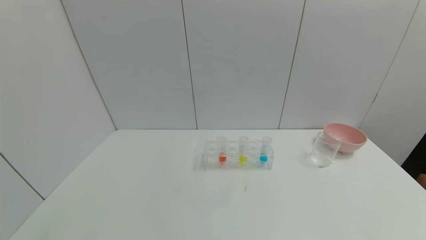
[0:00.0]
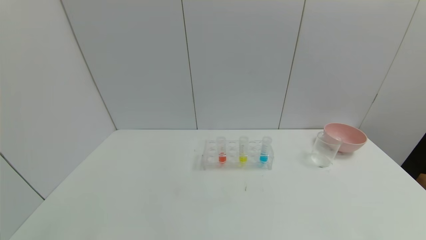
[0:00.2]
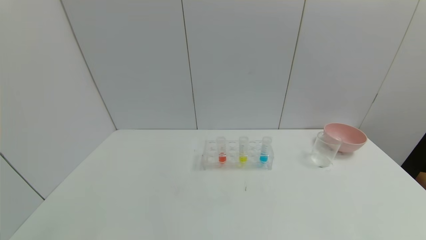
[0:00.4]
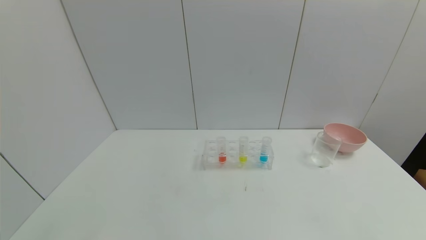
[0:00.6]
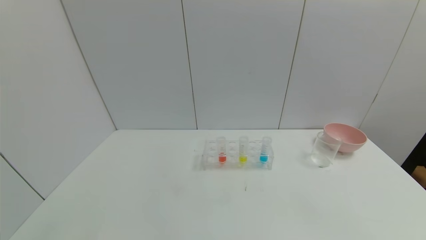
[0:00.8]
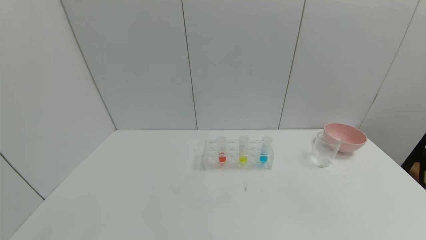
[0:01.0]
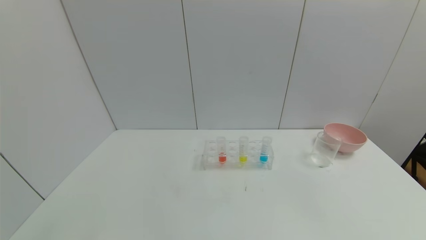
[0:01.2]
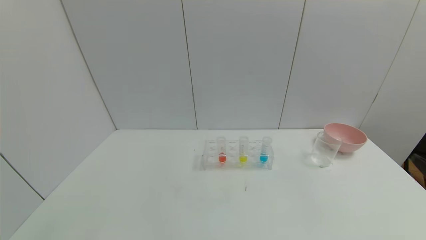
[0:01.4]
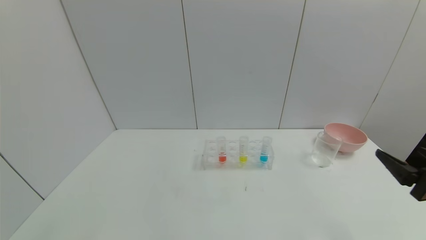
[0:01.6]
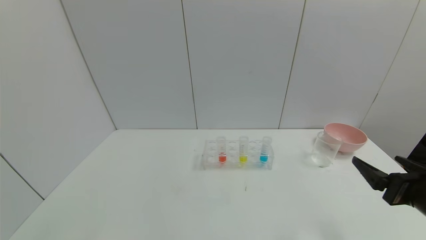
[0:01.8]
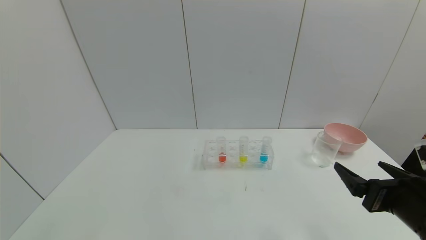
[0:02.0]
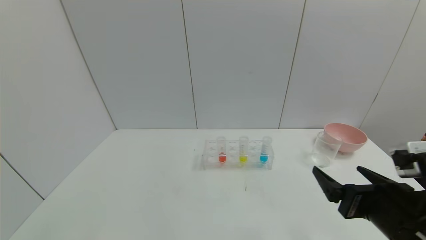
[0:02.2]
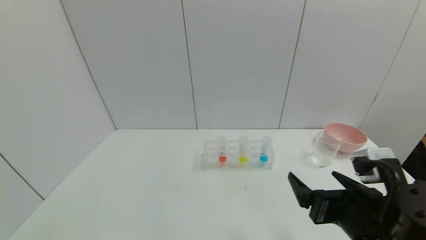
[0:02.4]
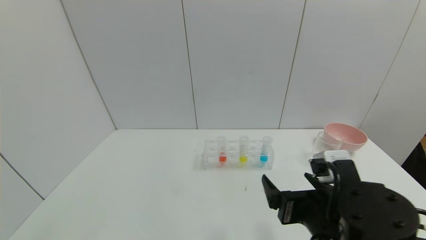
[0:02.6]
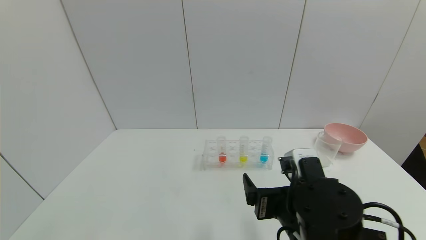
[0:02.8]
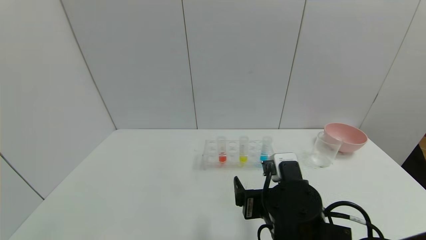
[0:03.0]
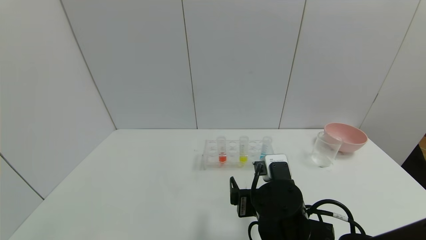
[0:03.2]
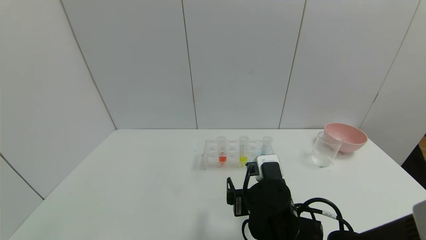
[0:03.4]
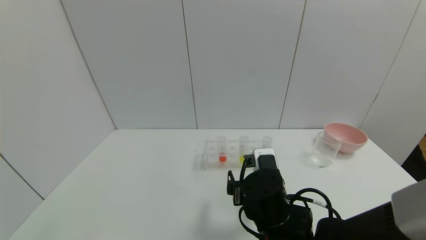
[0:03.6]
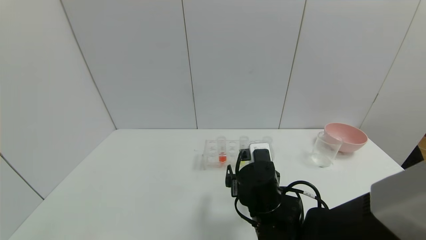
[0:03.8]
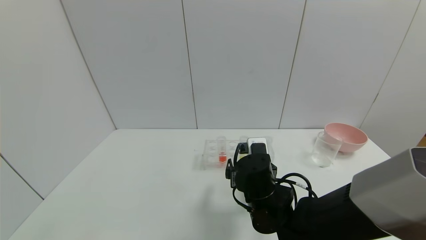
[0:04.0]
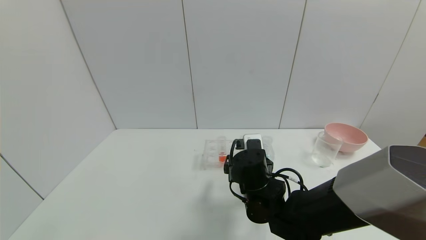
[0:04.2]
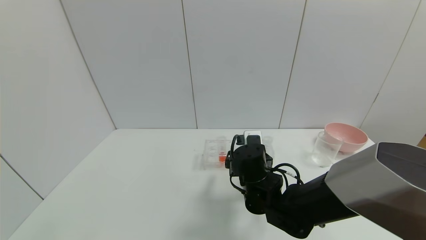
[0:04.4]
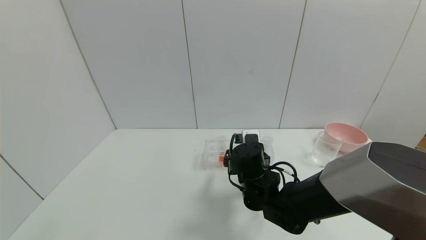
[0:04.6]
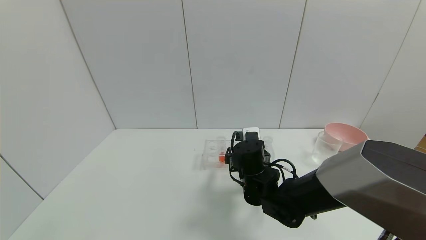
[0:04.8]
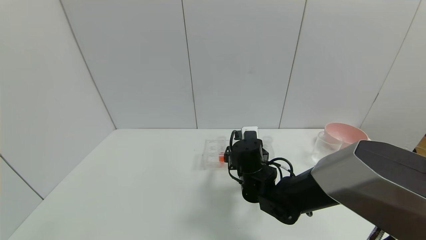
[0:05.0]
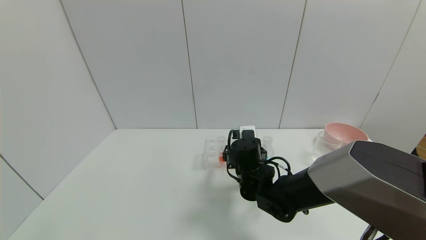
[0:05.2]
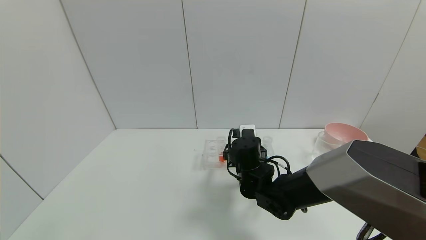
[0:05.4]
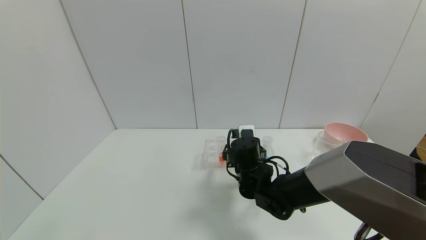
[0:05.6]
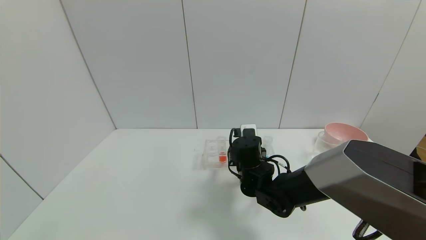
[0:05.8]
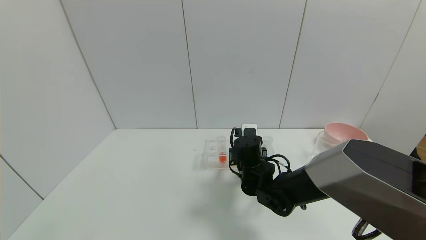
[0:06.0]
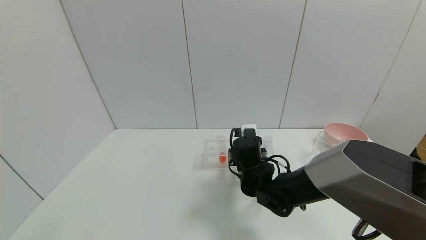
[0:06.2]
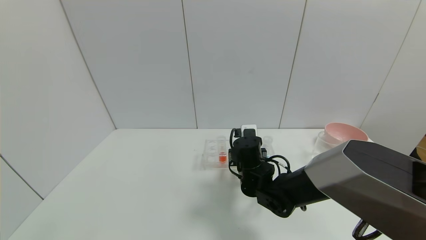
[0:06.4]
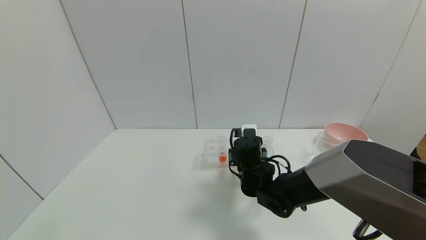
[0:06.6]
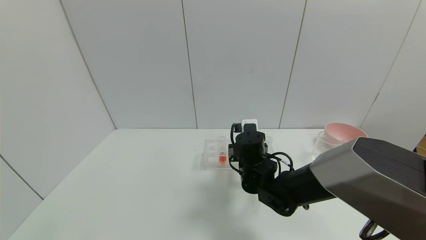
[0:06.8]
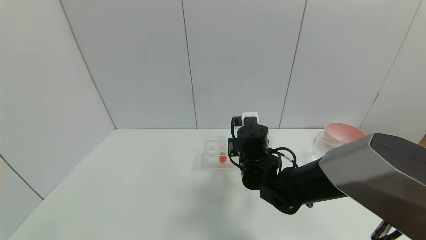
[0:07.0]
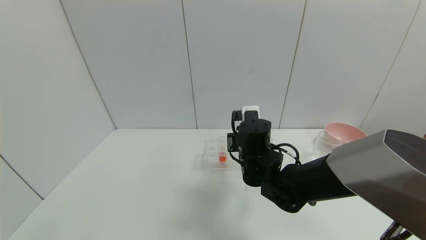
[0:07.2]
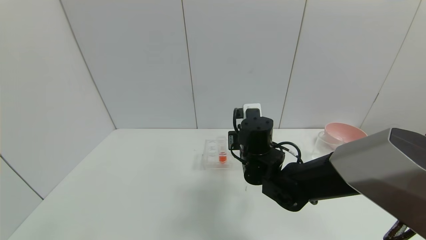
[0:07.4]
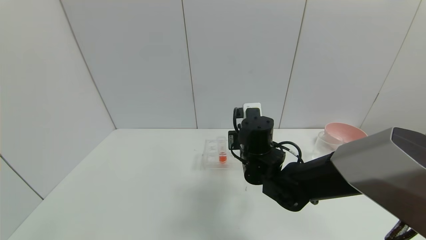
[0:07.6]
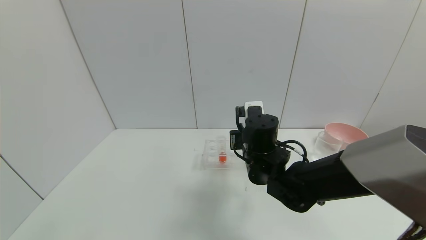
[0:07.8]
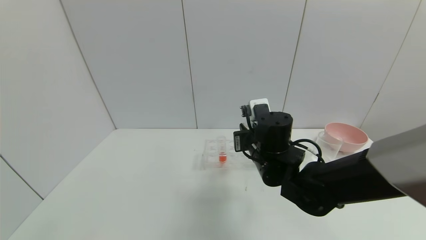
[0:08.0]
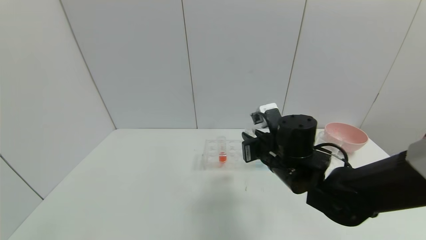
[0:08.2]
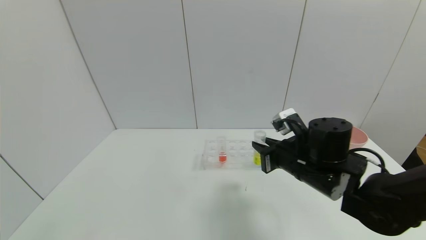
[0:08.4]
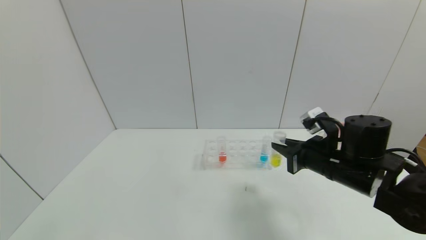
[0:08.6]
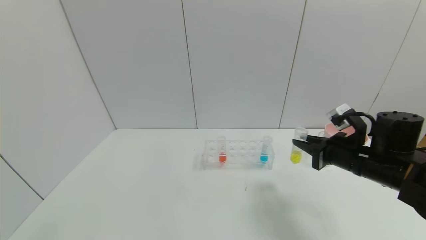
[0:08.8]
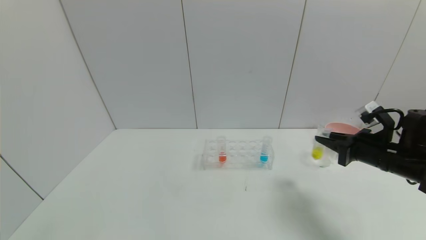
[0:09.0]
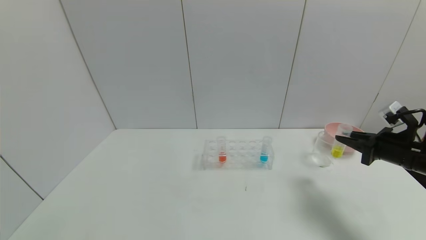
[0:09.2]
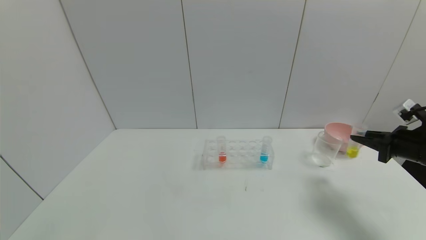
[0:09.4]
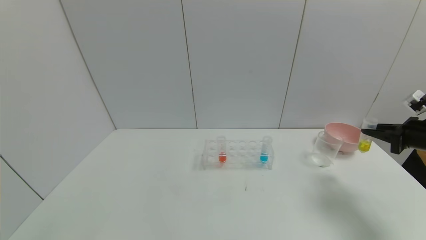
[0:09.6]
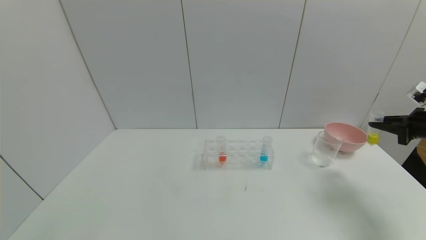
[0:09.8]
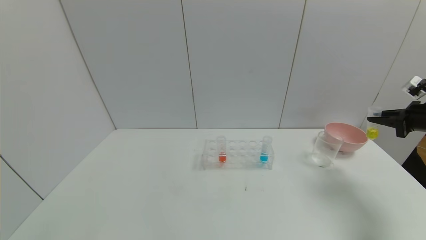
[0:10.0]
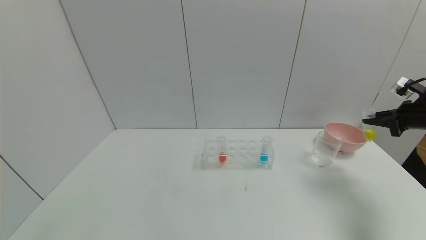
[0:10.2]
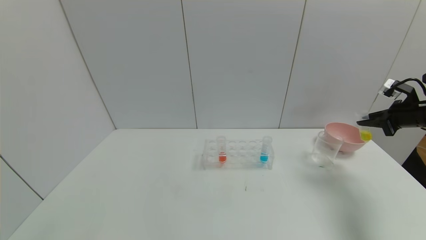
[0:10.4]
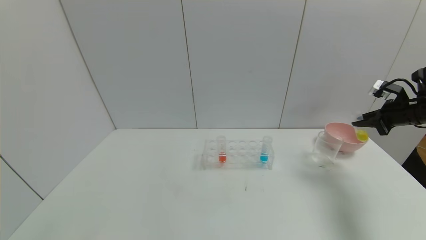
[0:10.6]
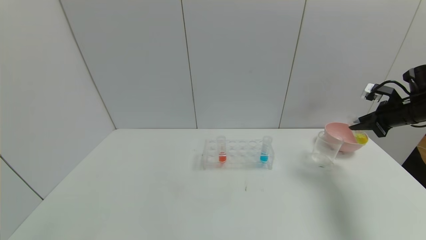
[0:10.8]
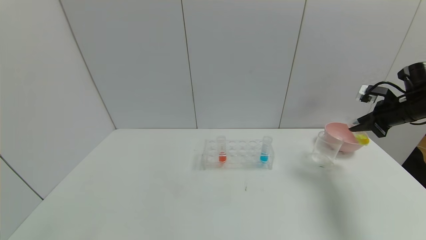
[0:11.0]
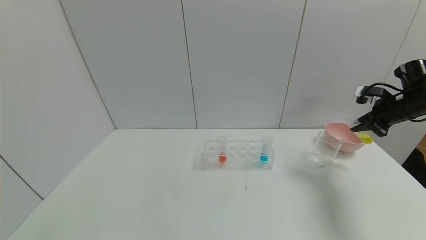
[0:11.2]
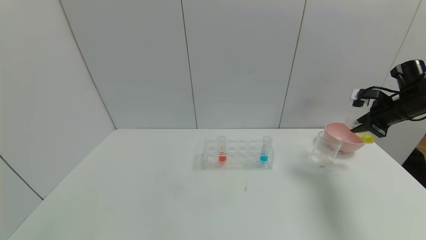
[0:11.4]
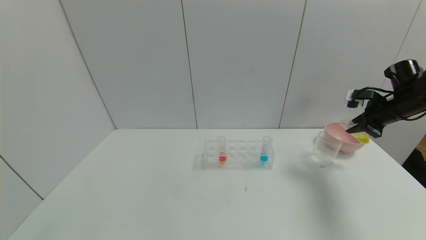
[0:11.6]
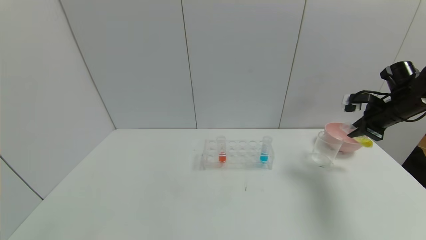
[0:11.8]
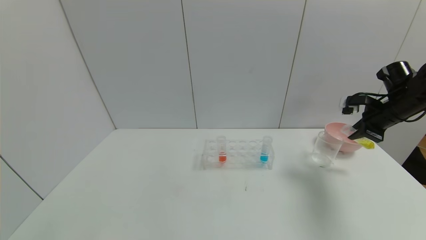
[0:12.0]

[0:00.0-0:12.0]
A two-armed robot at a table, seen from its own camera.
Task of the whole recording: pick up the test tube with yellow pigment and the test tube with blue pigment by grippers and pour them into the beaker.
Step, 0:00.0 to 0:06.2: Grasp the yellow reagent with the right gripper.
0:00.0 to 0:01.6: The right gripper is displaced forward and upward by about 20 cm.
0:01.6 to 0:03.0: The right gripper moves to the left, about 25 cm.
0:03.0 to 0:04.4: The right gripper heads forward, covering roughly 10 cm.
0:04.4 to 0:06.0: The right gripper closes.
0:06.0 to 0:07.6: The right gripper shifts some 5 cm upward.
0:07.6 to 0:09.0: The right gripper goes some 25 cm to the right.
0:09.0 to 0:10.4: The right gripper goes about 15 cm to the right and forward.
0:10.4 to 0:12.0: The right gripper is displaced to the left by approximately 5 cm.

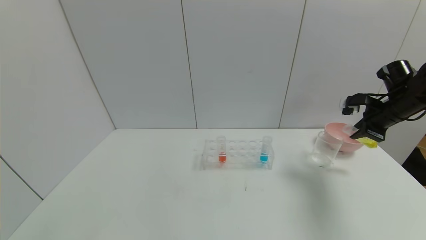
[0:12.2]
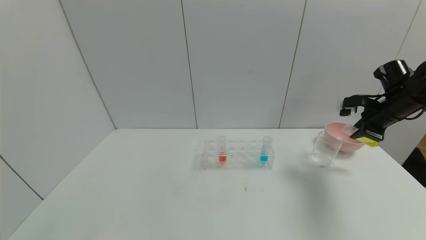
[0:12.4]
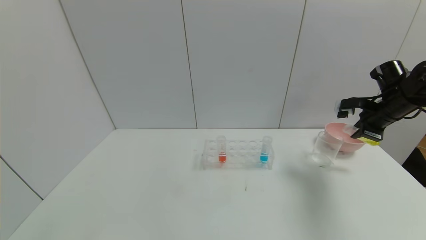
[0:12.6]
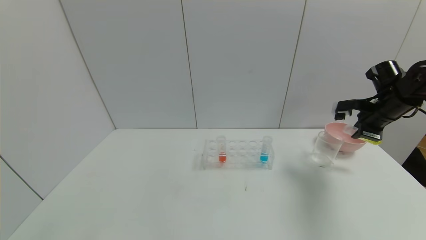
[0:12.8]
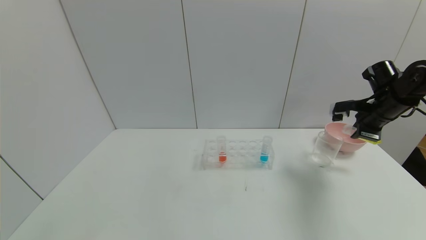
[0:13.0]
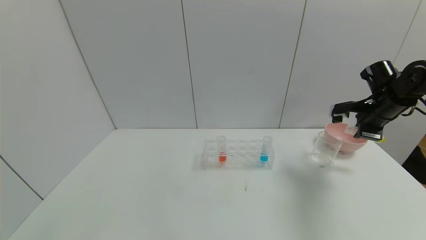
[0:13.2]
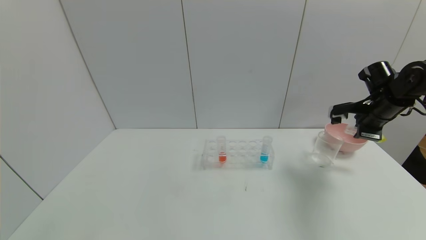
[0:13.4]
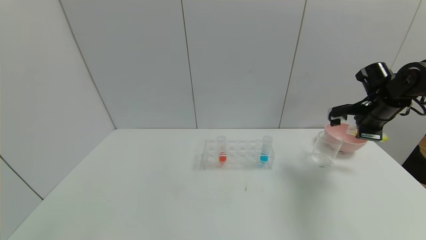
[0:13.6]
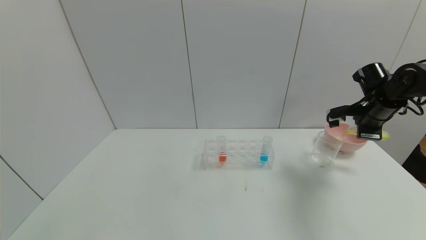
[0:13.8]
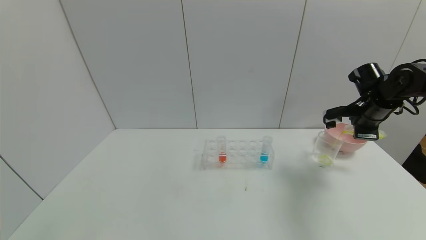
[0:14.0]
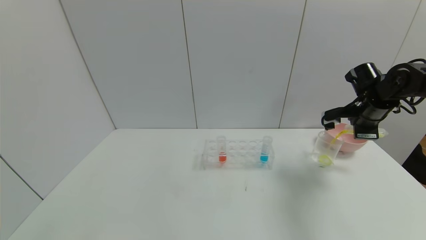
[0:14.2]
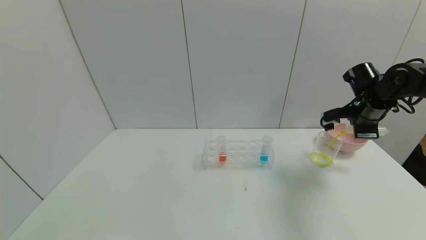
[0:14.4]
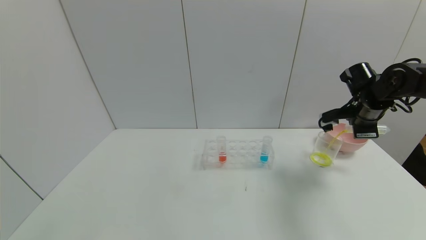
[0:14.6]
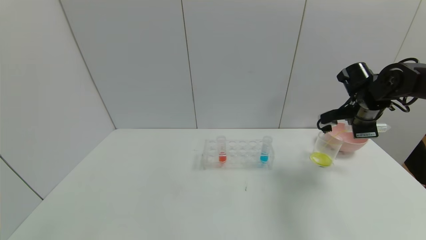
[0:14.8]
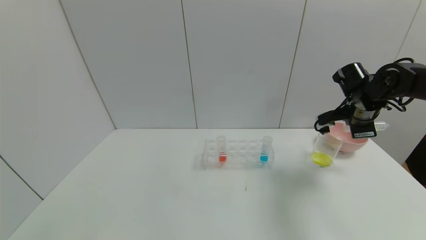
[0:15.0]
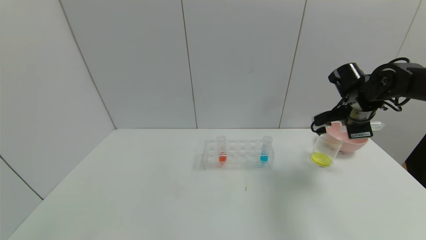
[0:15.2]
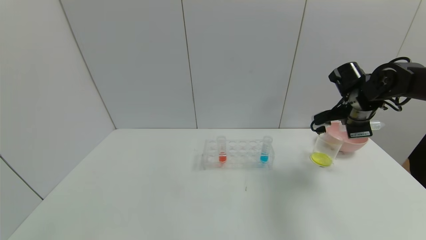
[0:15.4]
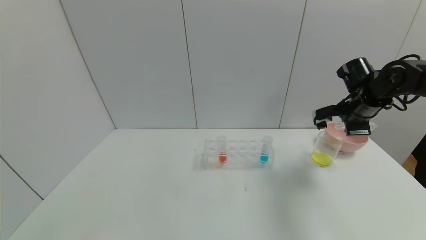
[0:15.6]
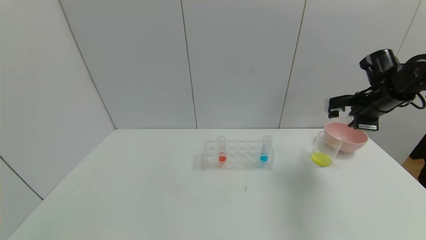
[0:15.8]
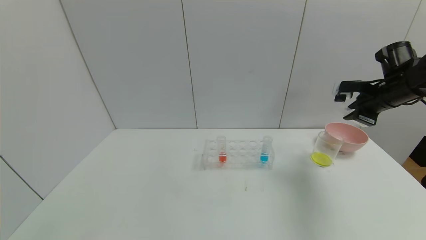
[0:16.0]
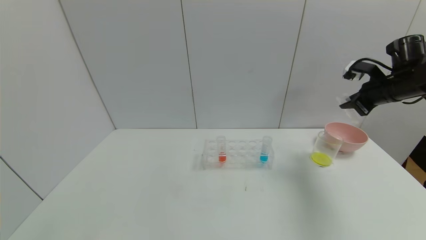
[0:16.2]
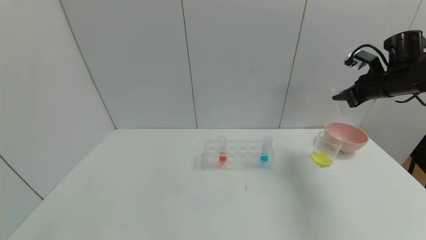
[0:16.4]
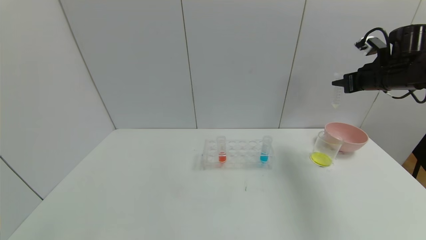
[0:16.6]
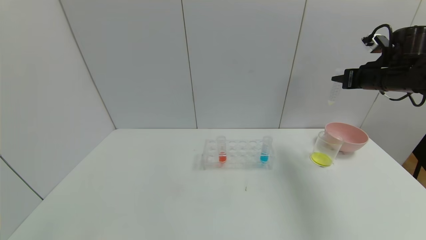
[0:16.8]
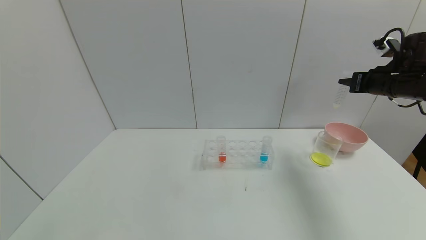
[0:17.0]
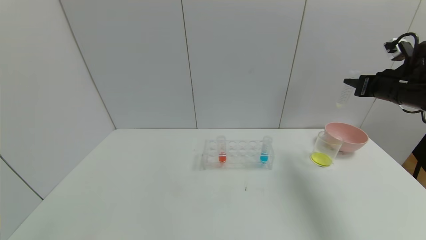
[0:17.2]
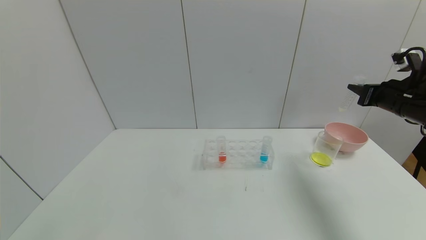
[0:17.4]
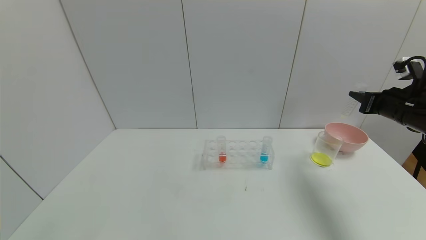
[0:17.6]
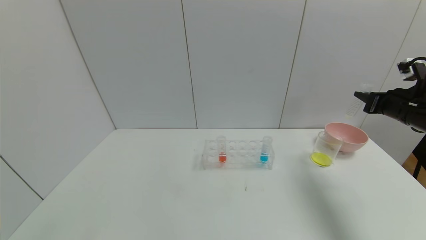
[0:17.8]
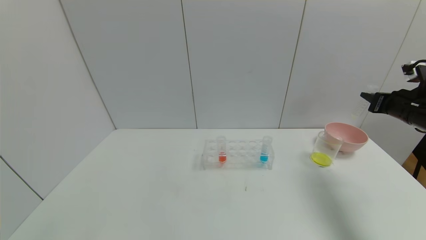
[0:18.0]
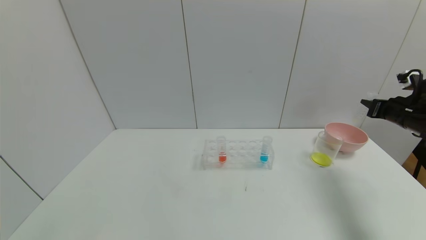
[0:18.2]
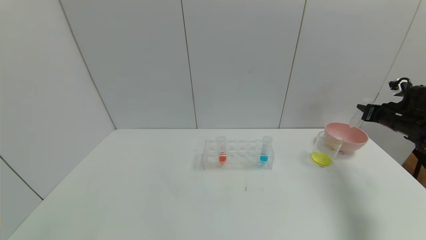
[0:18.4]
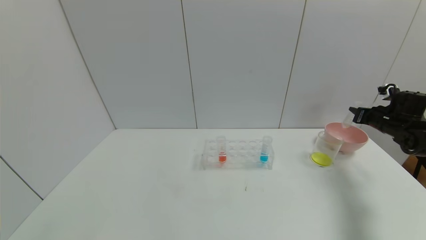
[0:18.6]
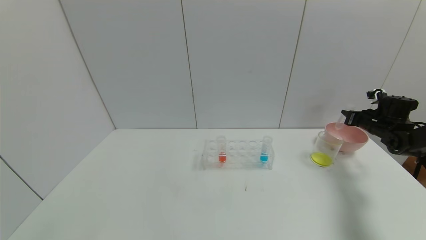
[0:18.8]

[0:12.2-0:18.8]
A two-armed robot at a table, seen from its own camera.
Task of the whole recording: pick up the test tube with yellow pigment and the test tube with blue pigment by grippers and pour them into the beaker.
Step, 0:12.2 to 0:15.2: Pour the yellow reagent into the graduated cylinder with the right gripper.
0:13.8 to 0:15.4: The right gripper shifts about 5 cm to the left.
0:15.4 to 0:17.2: The right gripper shifts approximately 5 cm to the right.
0:17.2 to 0:18.8: The right gripper moves downward, forward and to the right, some 20 cm.
